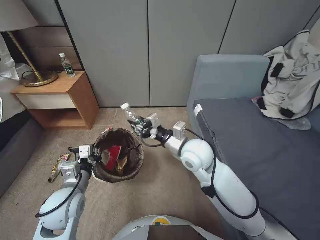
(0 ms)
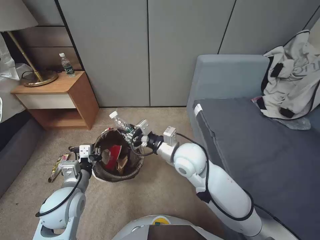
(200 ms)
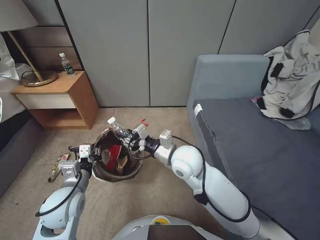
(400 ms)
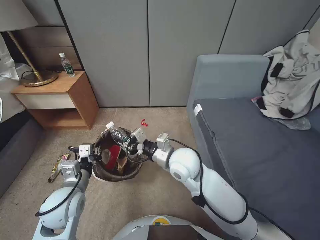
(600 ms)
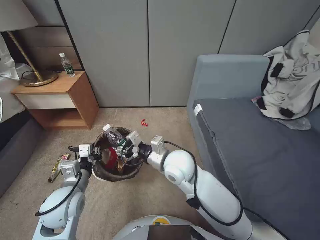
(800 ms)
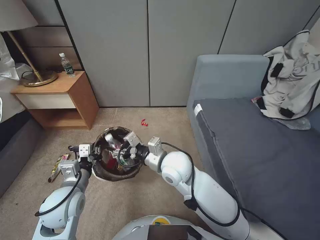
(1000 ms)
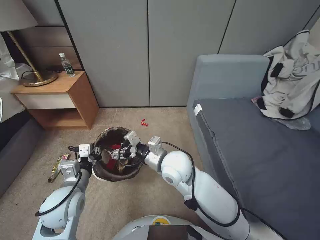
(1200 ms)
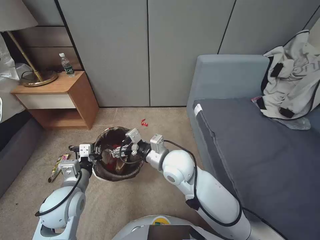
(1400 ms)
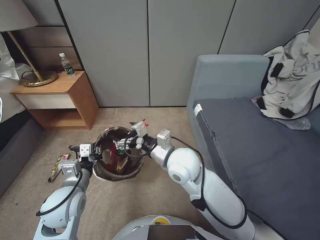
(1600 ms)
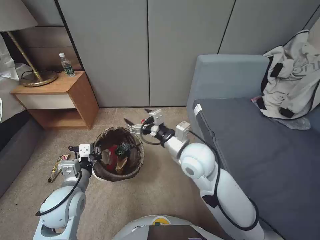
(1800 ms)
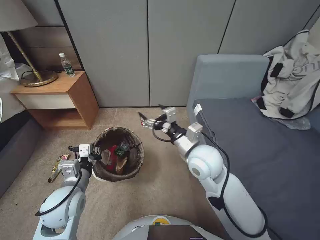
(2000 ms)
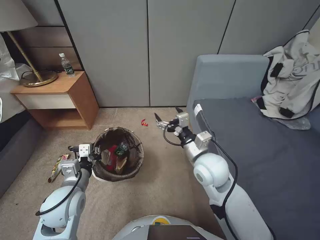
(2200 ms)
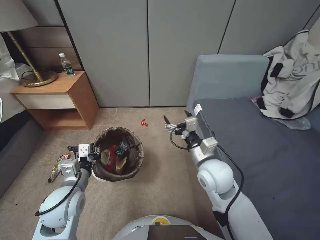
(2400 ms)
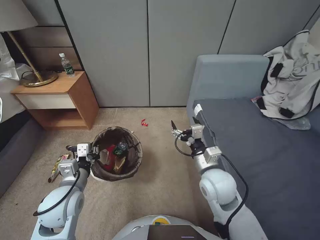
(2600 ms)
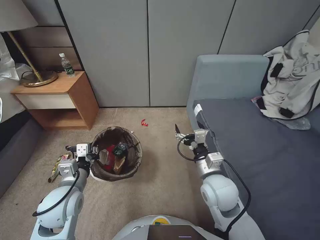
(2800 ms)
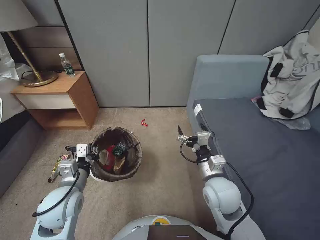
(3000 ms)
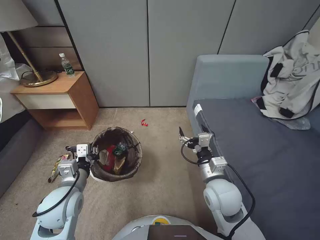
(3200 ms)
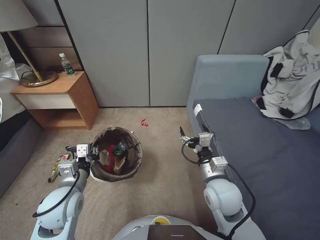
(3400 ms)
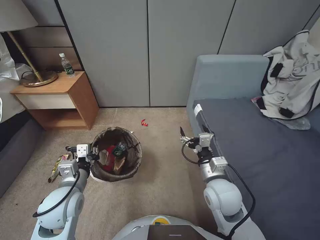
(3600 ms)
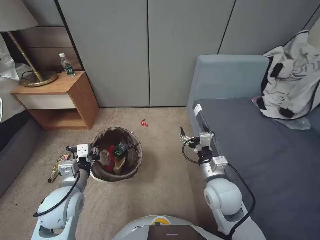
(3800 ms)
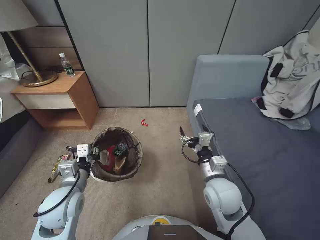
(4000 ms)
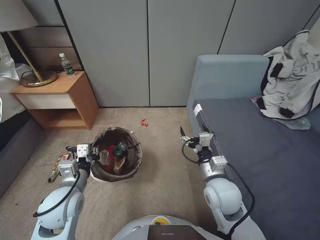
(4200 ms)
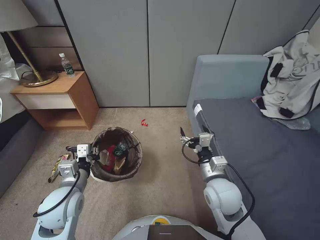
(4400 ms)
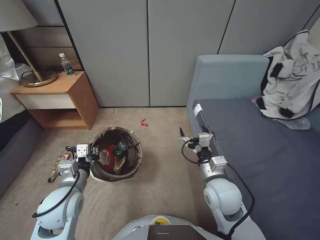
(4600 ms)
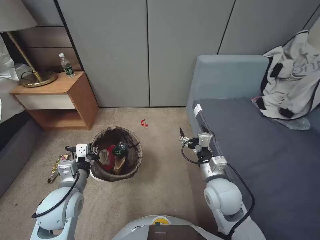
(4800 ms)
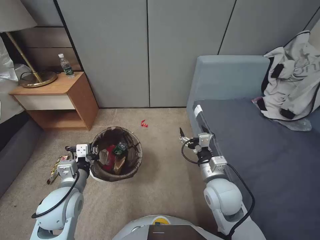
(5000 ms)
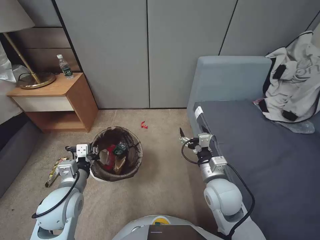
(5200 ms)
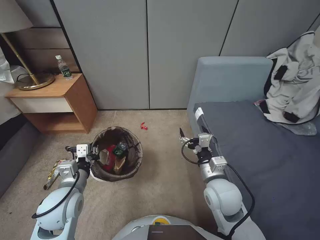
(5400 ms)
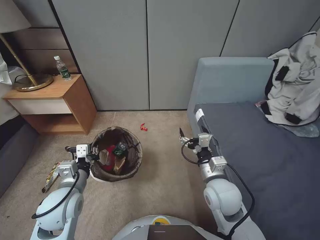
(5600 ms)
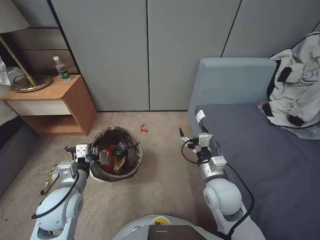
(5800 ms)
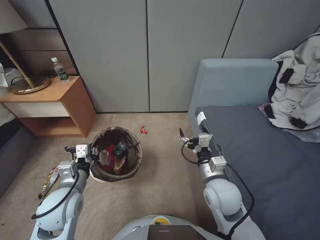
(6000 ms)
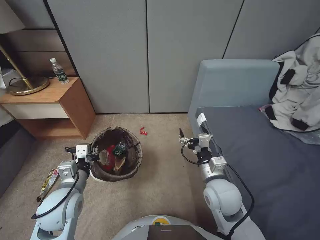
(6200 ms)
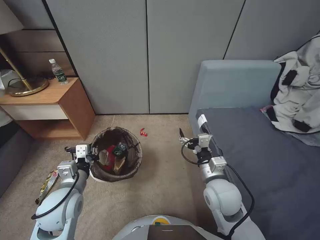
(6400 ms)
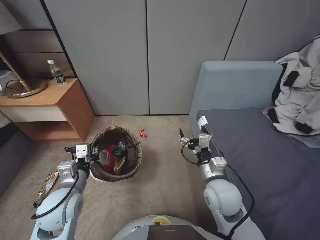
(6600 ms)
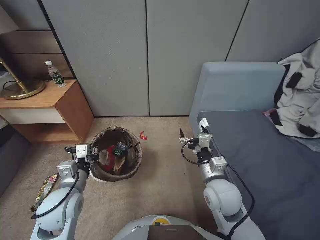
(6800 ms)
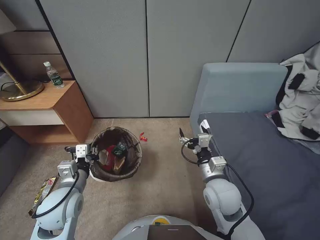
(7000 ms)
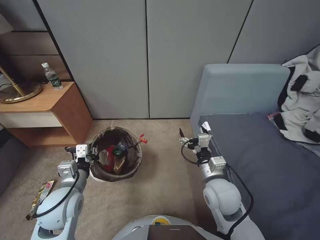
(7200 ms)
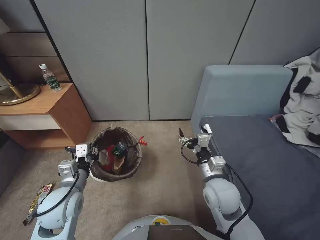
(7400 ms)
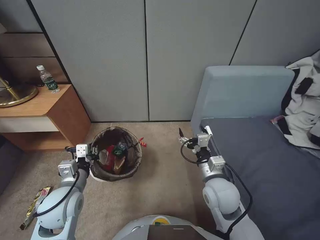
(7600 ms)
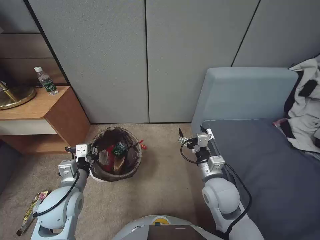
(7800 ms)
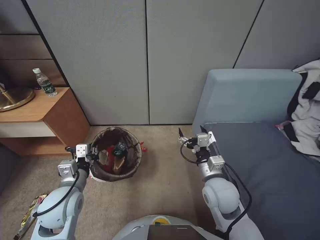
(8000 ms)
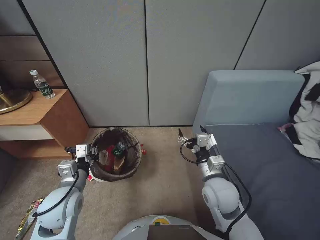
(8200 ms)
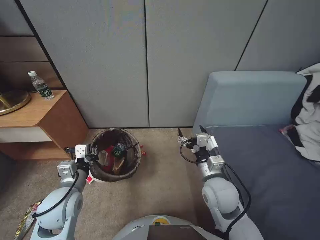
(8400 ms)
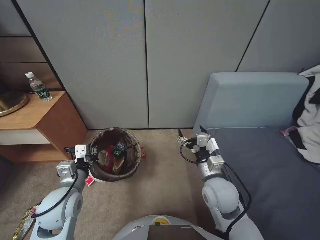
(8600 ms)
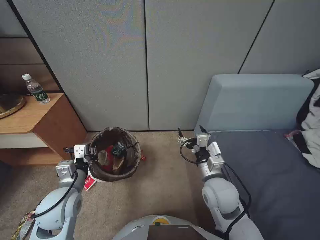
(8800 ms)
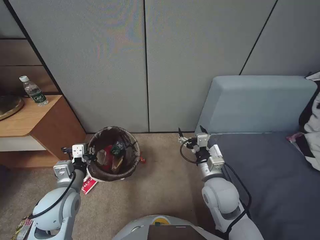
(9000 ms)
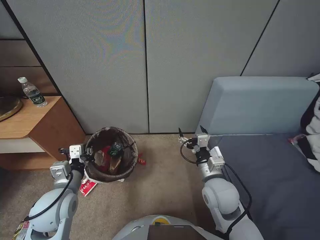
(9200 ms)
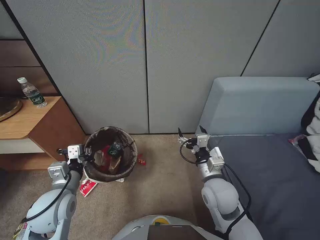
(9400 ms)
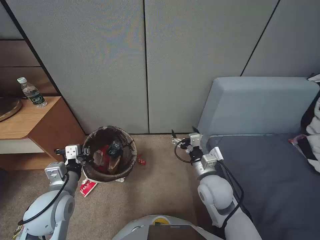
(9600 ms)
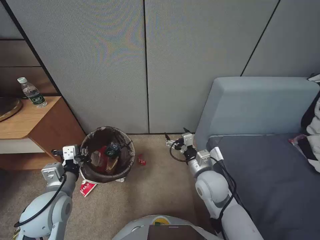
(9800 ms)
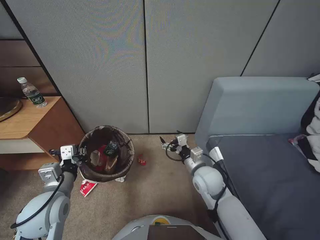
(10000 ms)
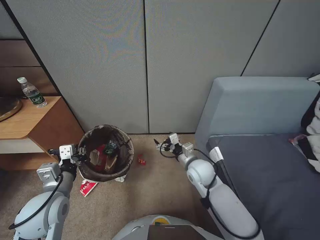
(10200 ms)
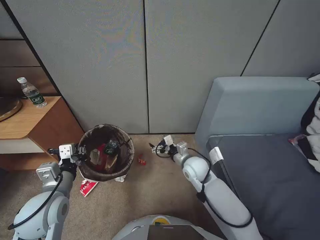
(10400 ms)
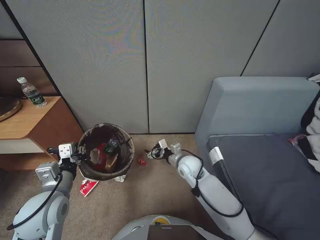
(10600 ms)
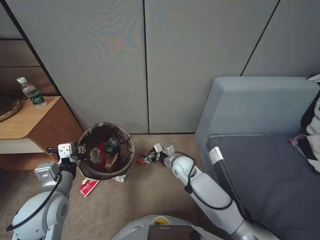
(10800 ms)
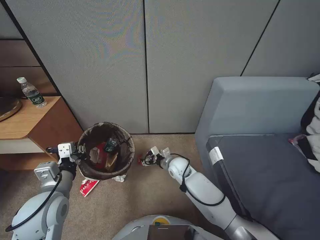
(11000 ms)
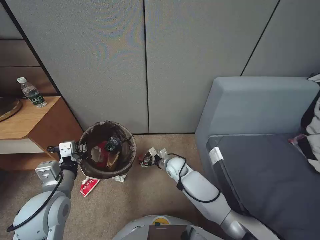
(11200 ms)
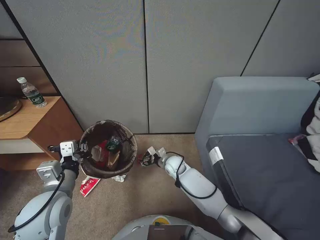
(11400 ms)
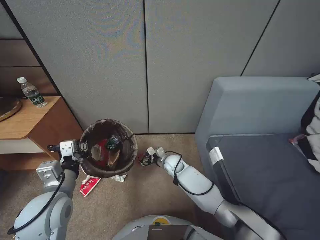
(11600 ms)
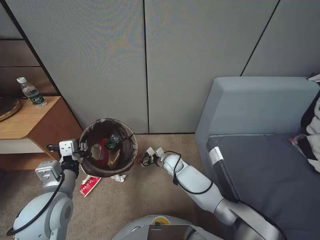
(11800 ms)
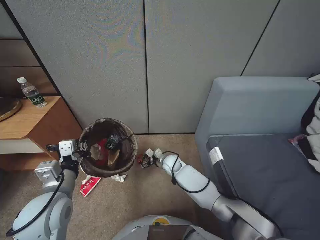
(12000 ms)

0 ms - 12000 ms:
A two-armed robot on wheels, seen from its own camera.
Task of the whole recording: Pick up the trash bin, then pick up the garbage from the floor and place it into the trash bin.
0 ms - 1600 ms: The right gripper shifts approximately 5 cm to the left, and opens.
1600 ms - 3000 ms: The right gripper is displaced to the right, backward and downward by about 15 cm.
3000 ms - 7600 ms: Both grippers stay put.
9000 ms - 10400 ms: The right gripper is displaced forward and downward by about 10 cm.
10400 ms - 12000 ms: The right gripper heads downward, forward and to the left, covering some 15 cm.

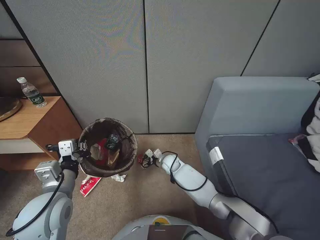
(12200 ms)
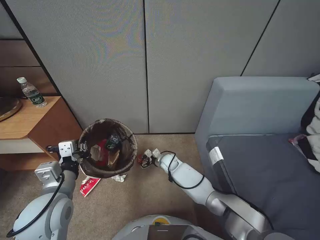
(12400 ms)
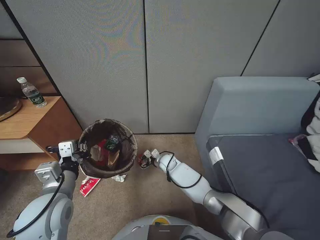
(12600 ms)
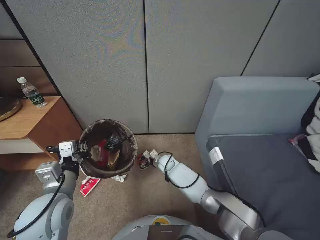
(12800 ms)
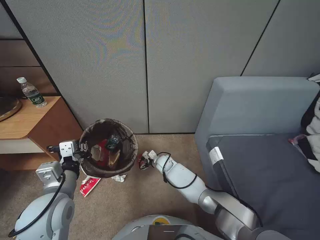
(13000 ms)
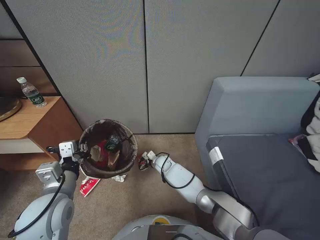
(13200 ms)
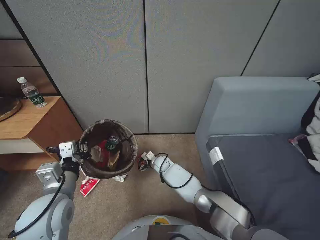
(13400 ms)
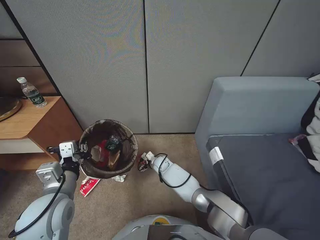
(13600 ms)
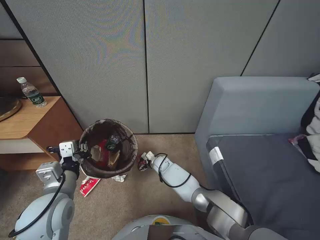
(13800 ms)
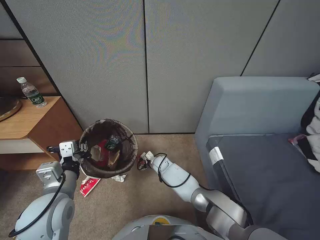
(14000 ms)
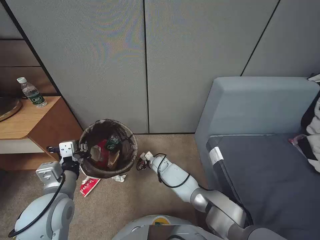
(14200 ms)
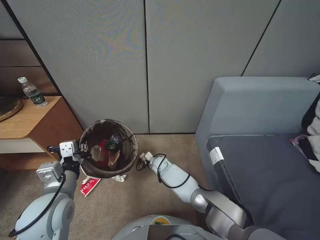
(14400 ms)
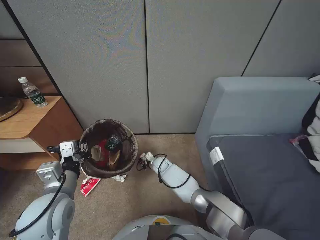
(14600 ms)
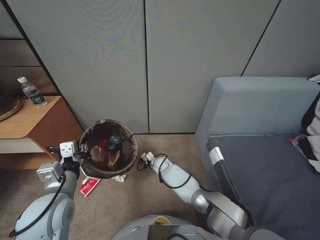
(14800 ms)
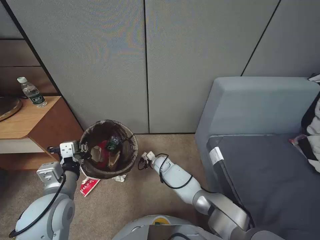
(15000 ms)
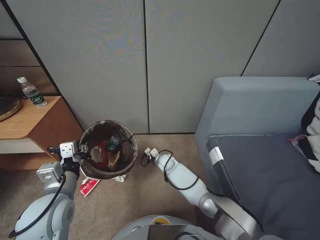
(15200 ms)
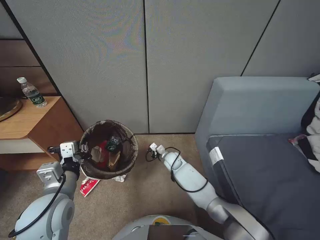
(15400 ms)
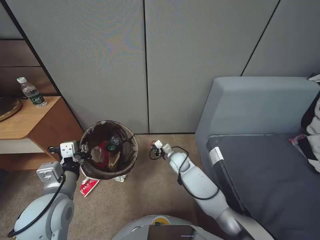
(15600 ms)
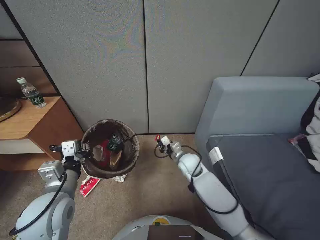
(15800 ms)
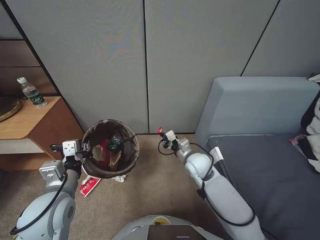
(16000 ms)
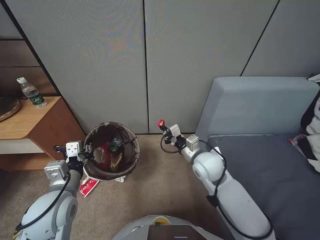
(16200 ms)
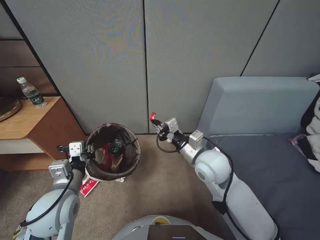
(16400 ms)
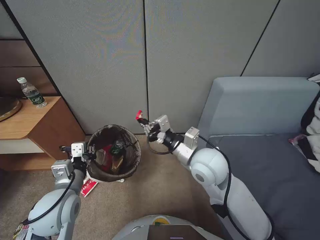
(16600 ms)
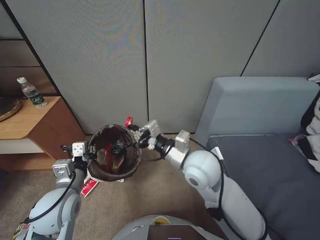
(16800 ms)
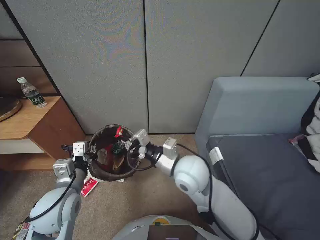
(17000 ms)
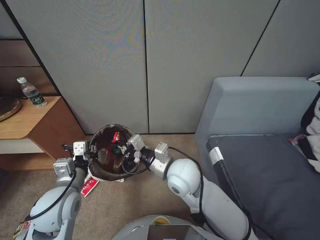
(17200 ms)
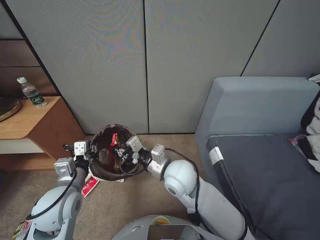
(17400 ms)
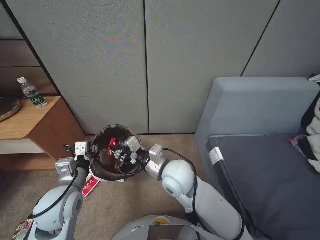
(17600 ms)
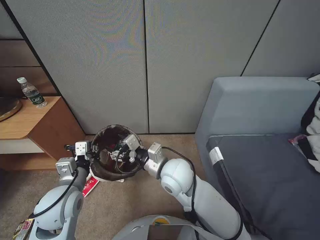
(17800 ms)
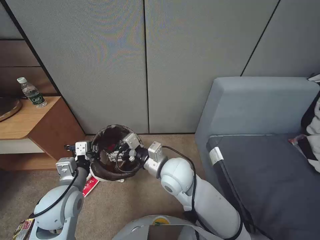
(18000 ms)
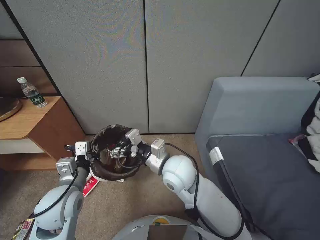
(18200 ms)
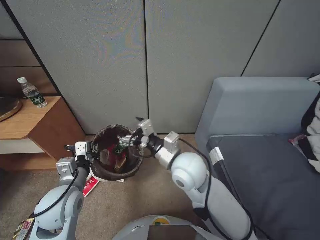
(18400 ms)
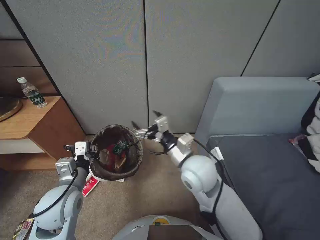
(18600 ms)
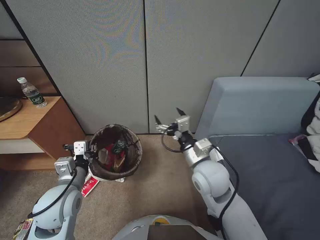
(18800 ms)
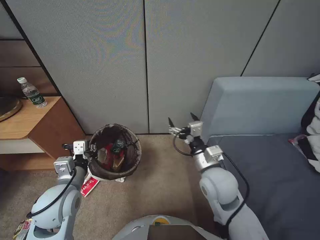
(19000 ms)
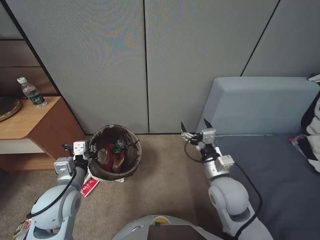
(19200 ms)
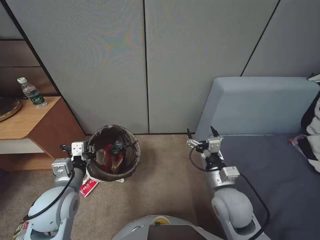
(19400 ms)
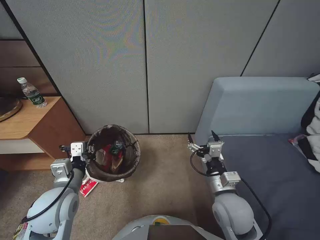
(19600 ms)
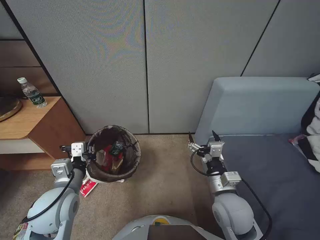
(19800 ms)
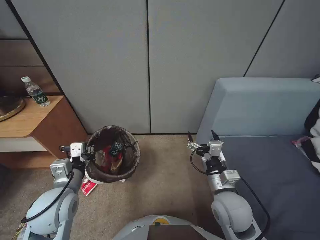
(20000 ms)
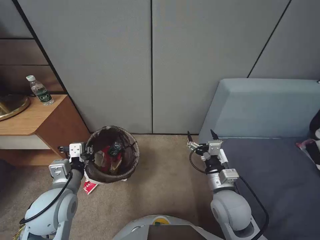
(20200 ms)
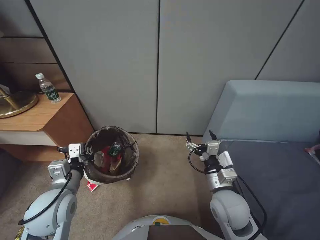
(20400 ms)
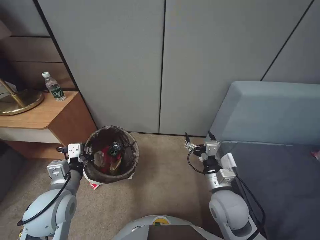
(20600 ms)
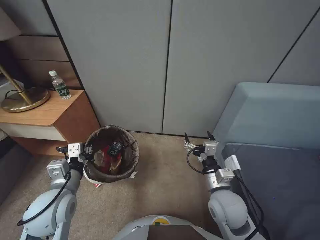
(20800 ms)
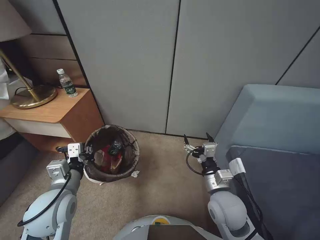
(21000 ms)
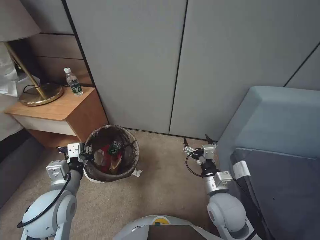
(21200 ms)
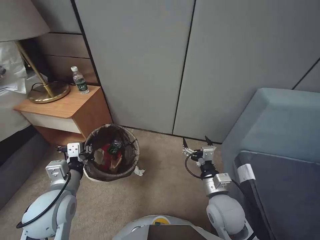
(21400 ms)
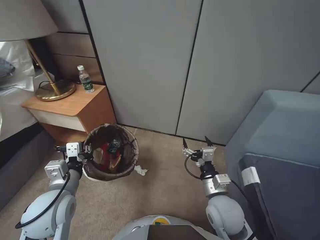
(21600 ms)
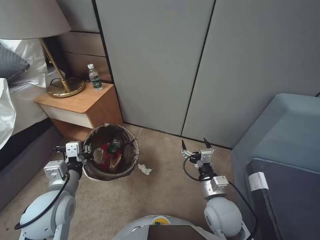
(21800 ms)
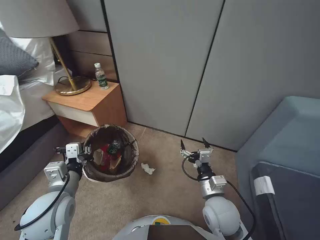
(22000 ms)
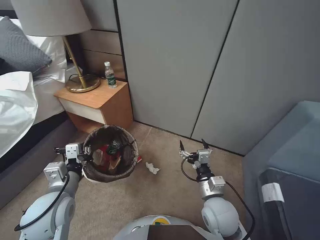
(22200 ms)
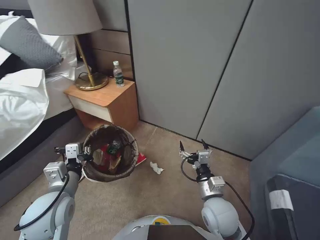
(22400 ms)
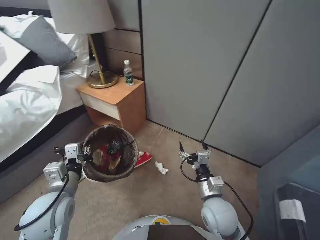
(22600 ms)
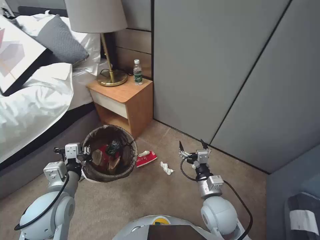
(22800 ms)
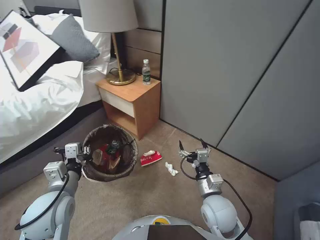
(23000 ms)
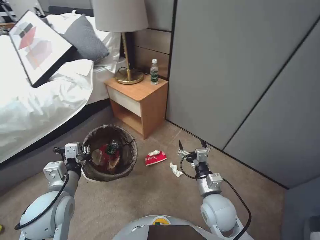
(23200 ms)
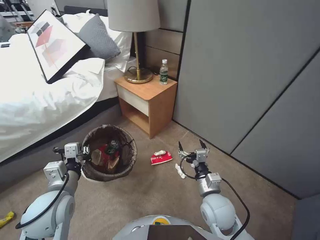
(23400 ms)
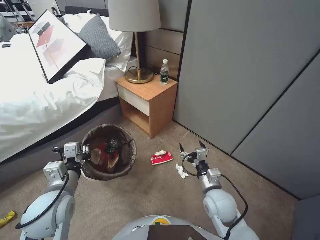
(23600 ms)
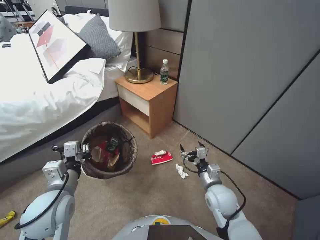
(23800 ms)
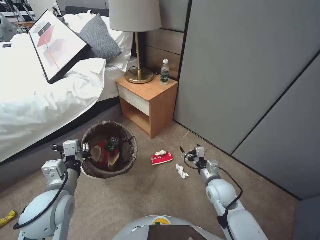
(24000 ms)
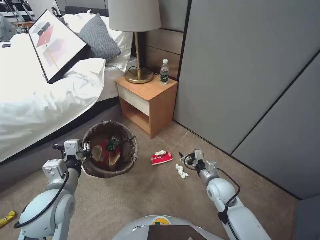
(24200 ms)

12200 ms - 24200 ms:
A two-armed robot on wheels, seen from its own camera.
Task of the whole recording: Pick up the trash bin, then pick up the garbage from the floor and place it into the trash bin.
12200 ms - 13800 ms: The right gripper moves roughly 5 cm.
13800 ms - 15200 ms: The right gripper closes its fingers.
15200 ms - 16600 ms: The right gripper heads upward and backward, covering some 35 cm.
16600 ms - 18200 ms: The right gripper heads to the left, covering about 10 cm, and opens.
18200 ms - 19800 ms: The right gripper heads to the right, backward and downward, covering about 20 cm.
22600 ms - 24200 ms: The right gripper travels forward, to the right and downward by some 10 cm.
